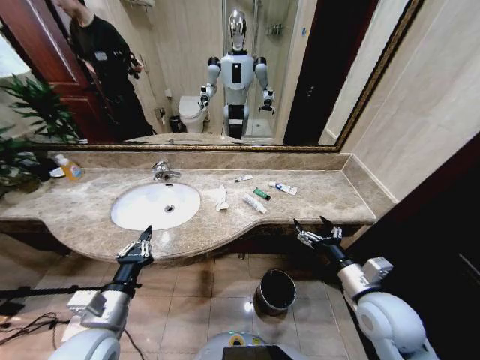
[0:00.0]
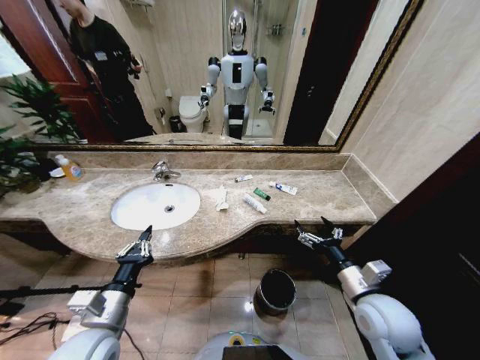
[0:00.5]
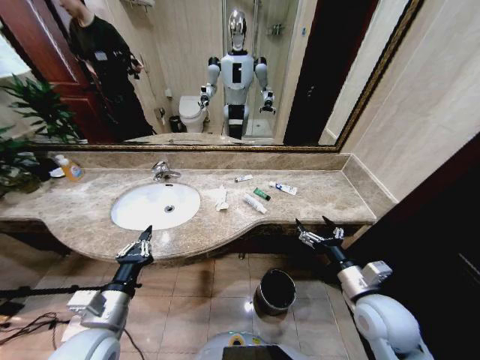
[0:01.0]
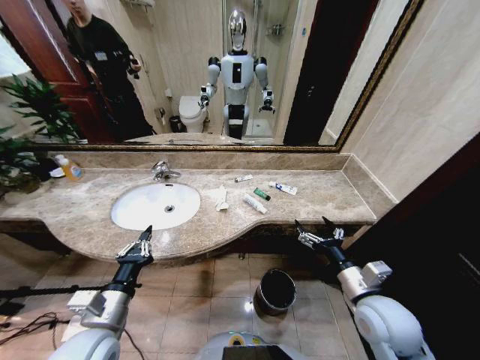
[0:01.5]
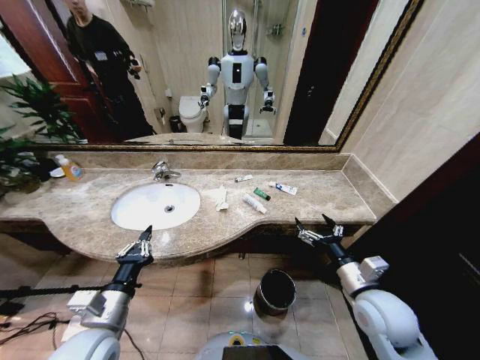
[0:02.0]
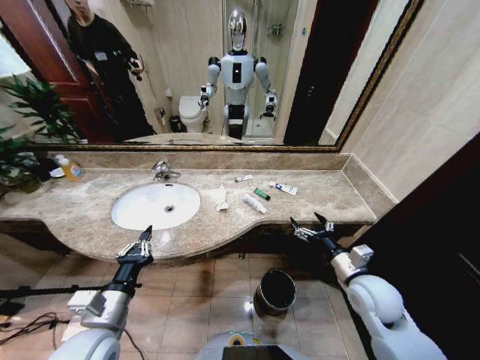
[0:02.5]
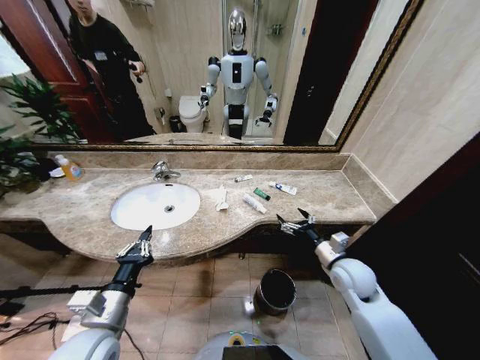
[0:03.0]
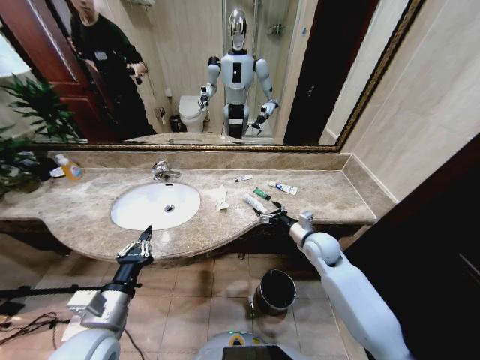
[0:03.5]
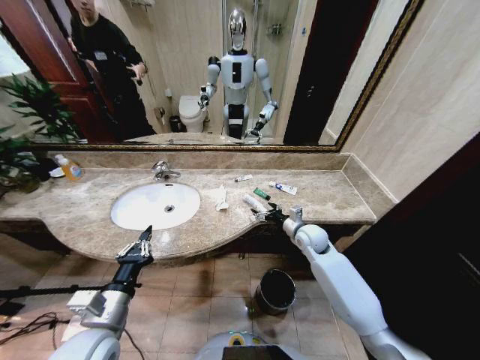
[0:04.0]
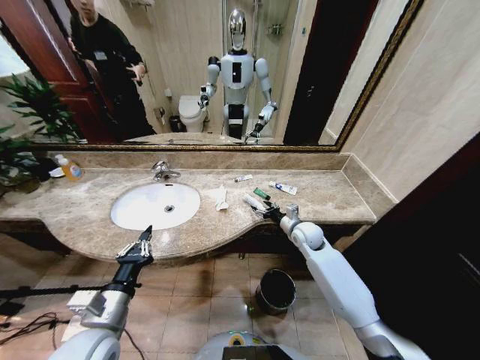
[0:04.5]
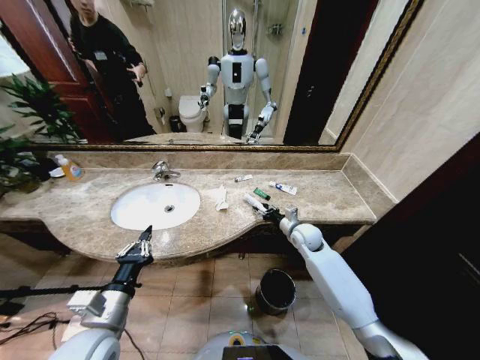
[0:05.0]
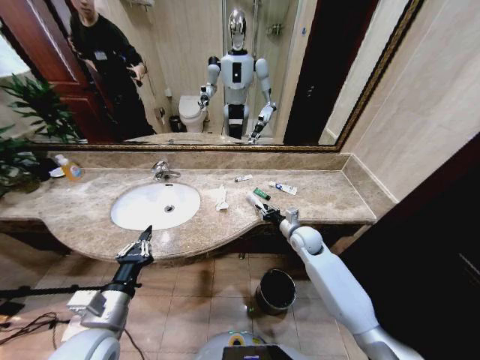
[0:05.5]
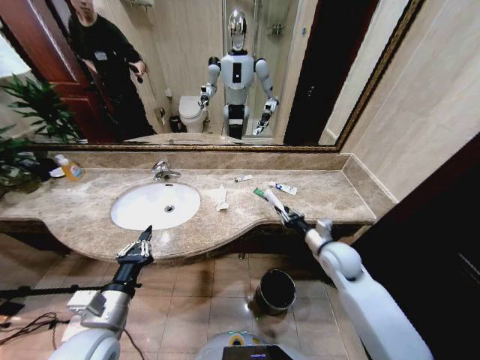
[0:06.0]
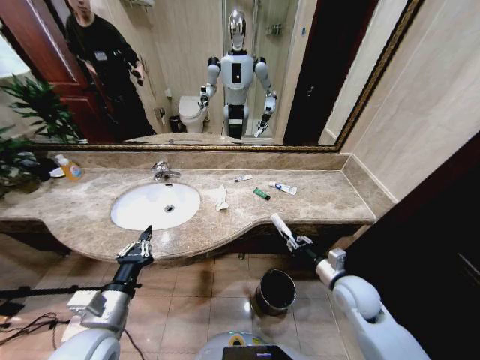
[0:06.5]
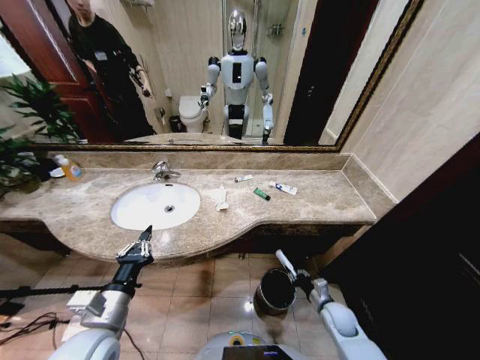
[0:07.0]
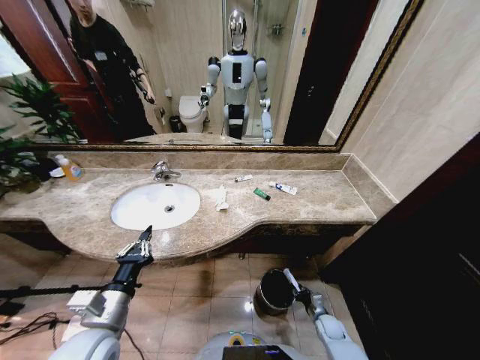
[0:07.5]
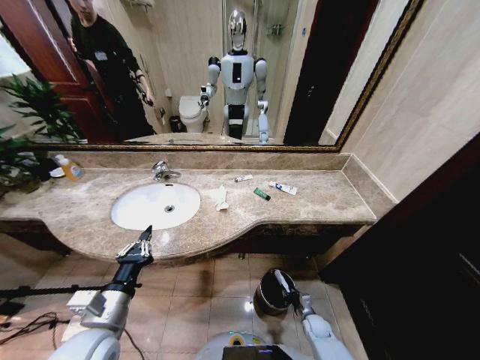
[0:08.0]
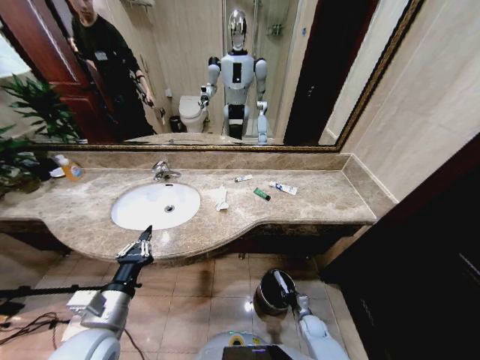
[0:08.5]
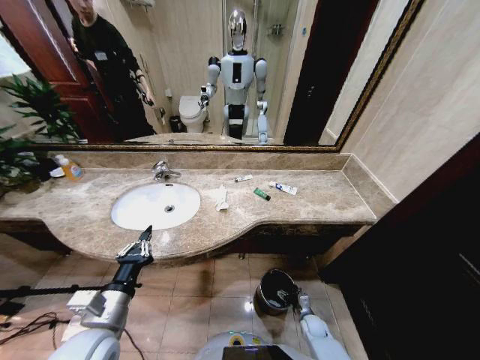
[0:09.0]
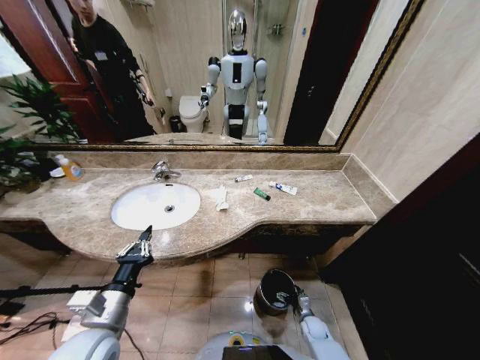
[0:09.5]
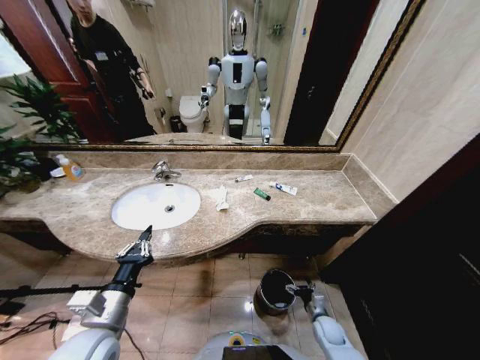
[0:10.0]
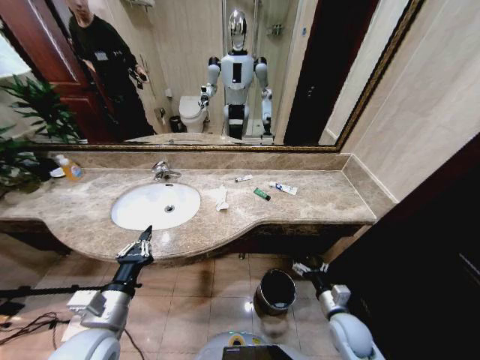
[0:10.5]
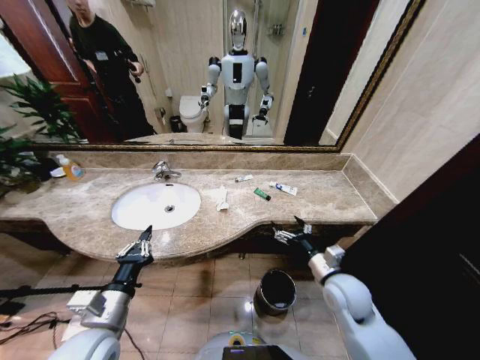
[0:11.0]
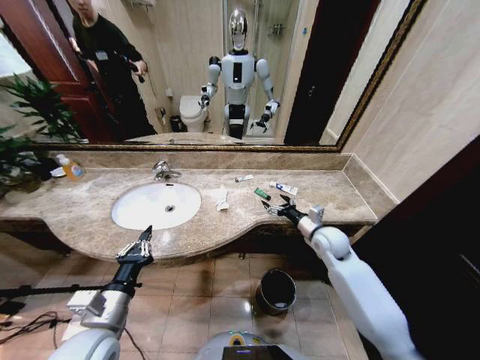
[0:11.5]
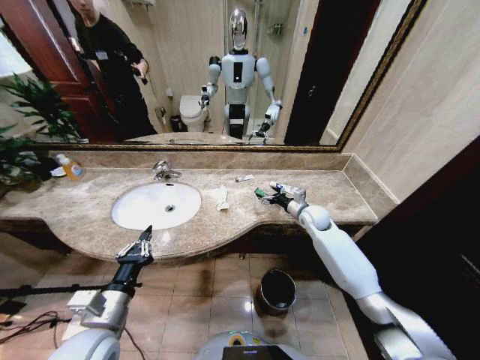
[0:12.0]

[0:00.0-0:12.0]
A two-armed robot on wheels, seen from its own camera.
Task of the whole recording: Pick up the trash from the sink and place it in the trash bin.
0:02.0 to 0:04.0: The right gripper heads forward, covering approximately 20 cm.
0:04.0 to 0:06.0: The right gripper heads backward, covering some 10 cm, and closes its fingers.
0:06.0 to 0:08.0: The right gripper goes roughly 35 cm downward.
0:08.0 to 0:10.0: The right gripper changes place by roughly 5 cm, and opens.
0:10.0 to 0:12.0: The right gripper shifts approximately 40 cm upward and forward.

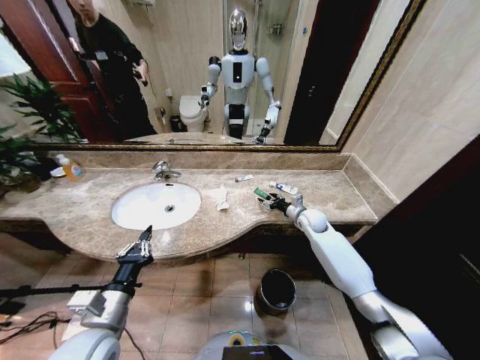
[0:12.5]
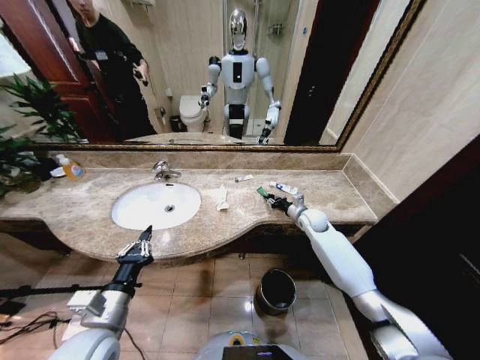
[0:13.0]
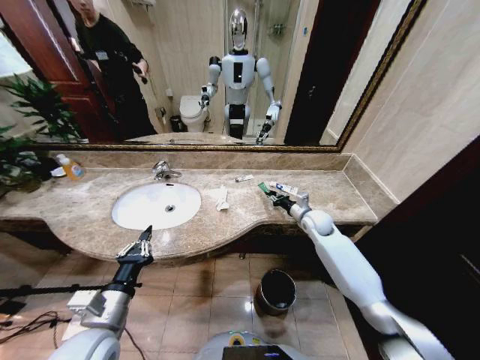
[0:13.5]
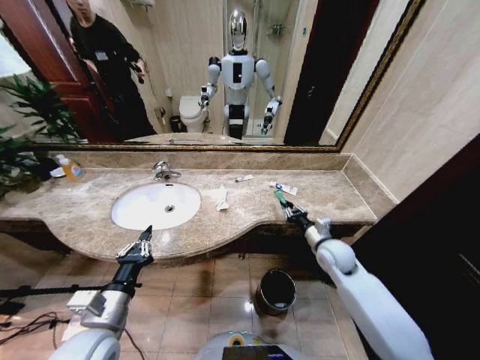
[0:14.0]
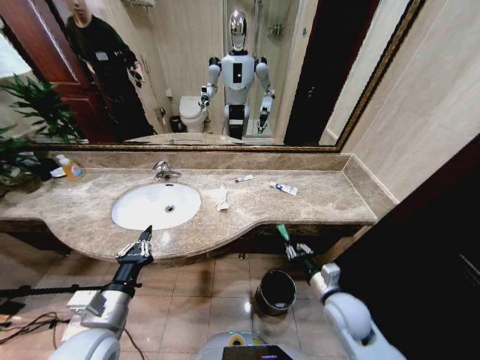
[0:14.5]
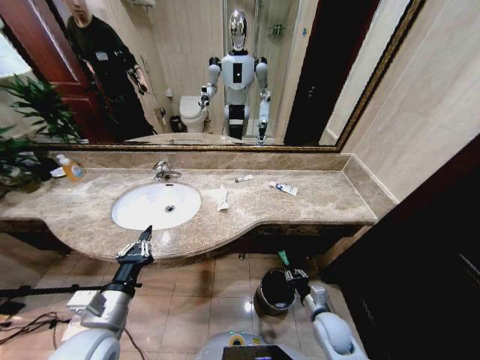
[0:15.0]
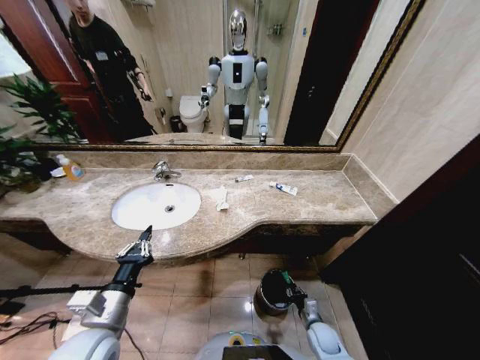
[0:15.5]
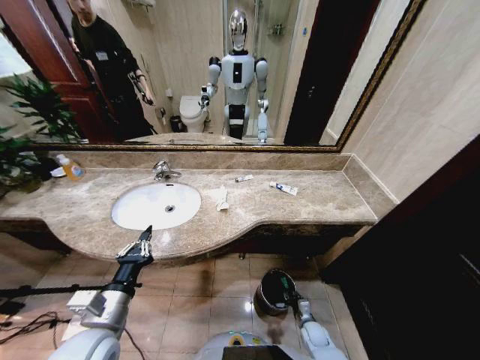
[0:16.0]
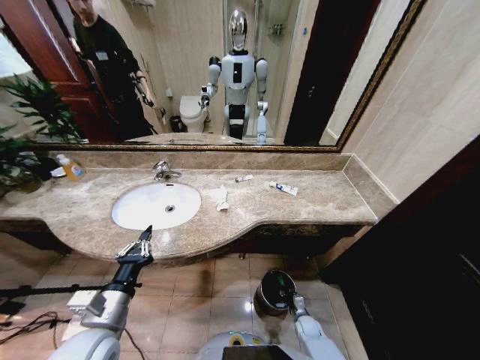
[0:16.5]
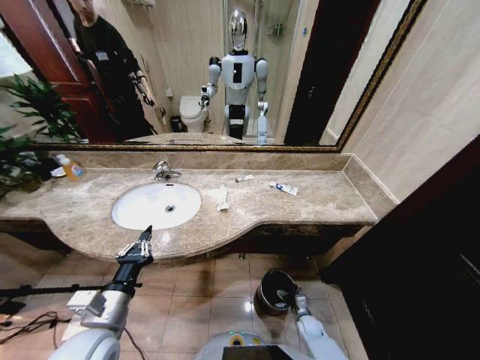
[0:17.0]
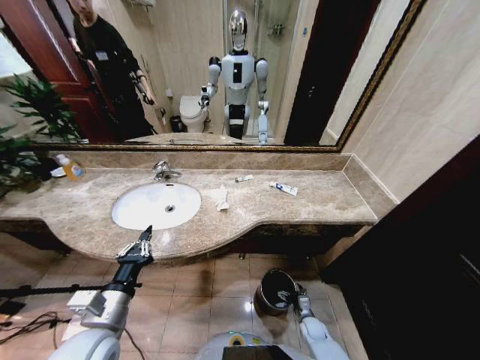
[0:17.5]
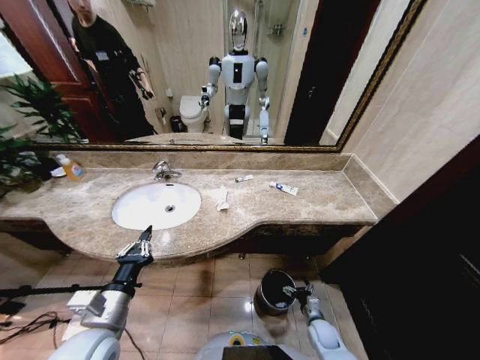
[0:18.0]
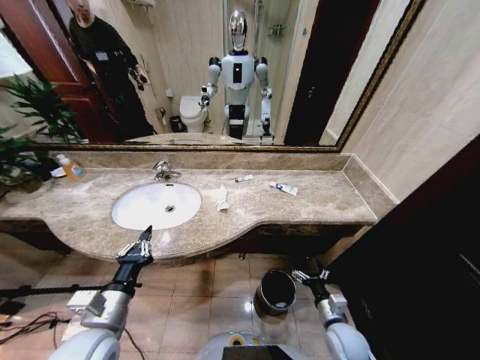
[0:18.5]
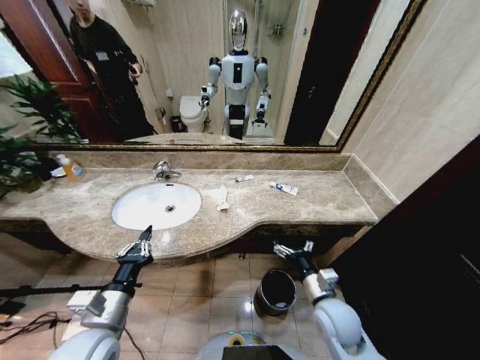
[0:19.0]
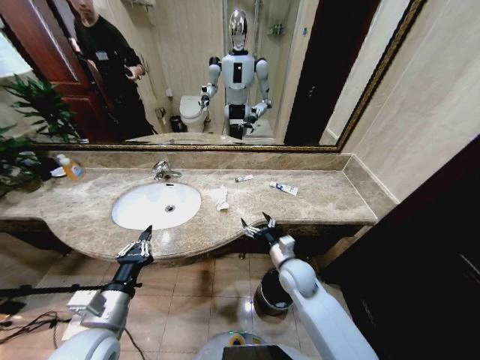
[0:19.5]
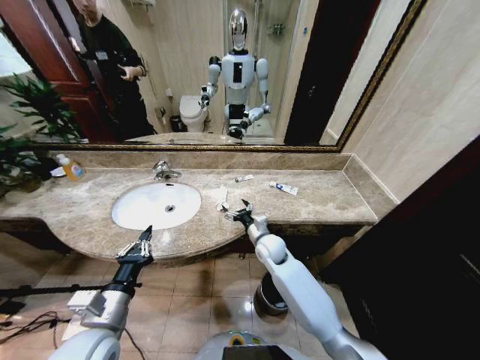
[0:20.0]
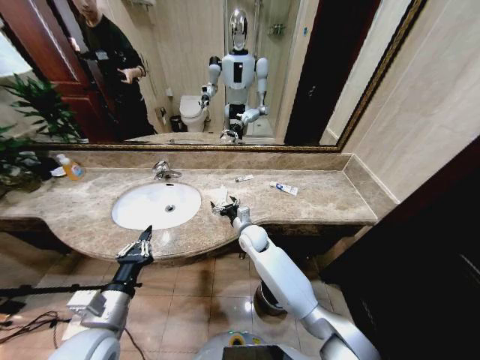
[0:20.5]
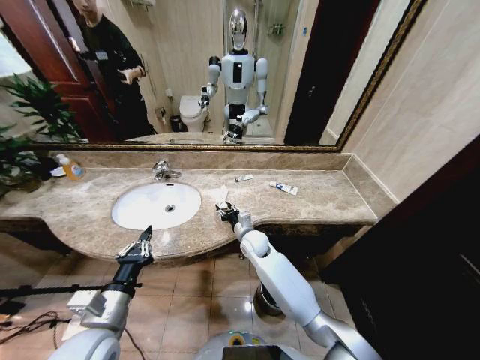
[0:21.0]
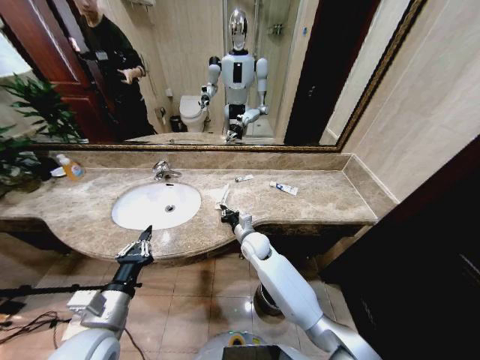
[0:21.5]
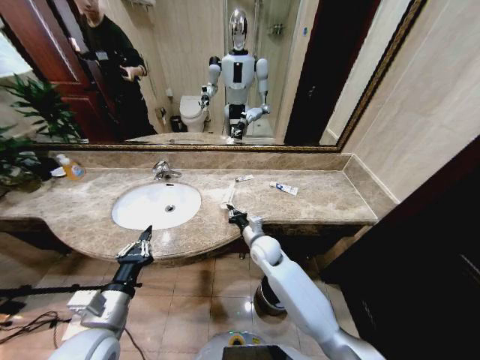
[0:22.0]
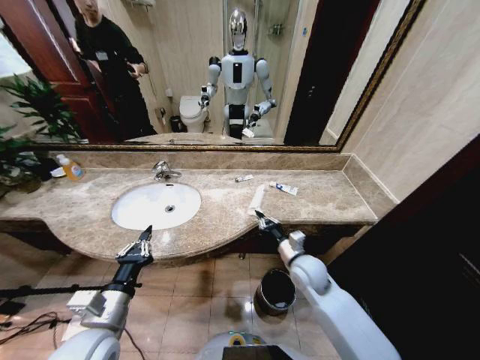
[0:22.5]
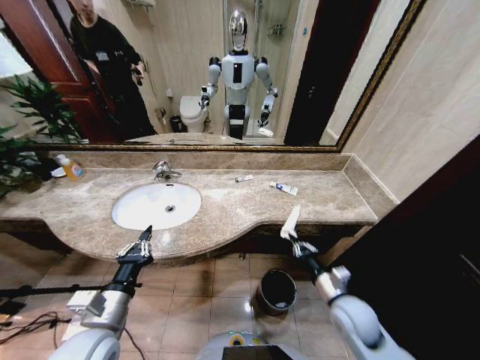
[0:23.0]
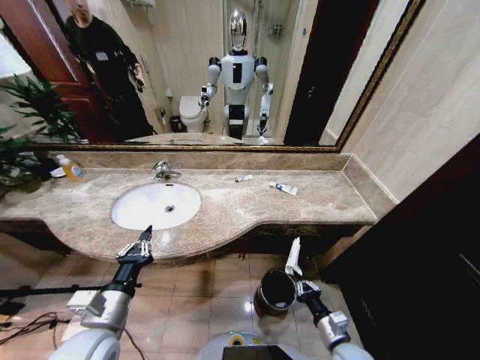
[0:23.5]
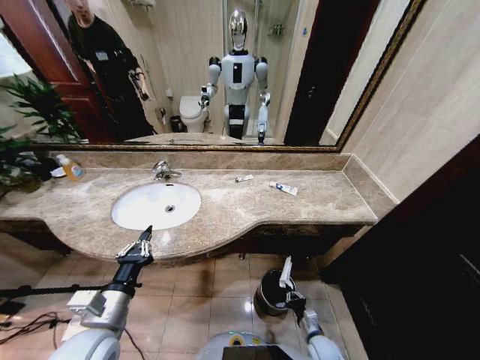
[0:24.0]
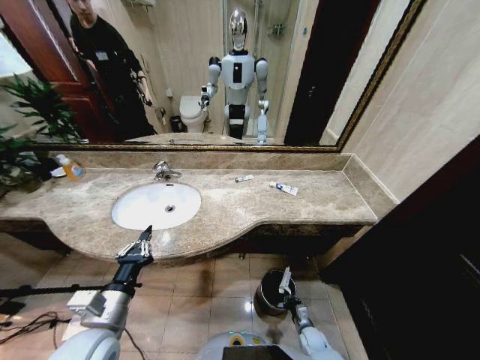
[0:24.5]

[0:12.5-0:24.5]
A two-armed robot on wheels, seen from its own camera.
Task of the whole recording: Pick up the trash from the sink and place it in the trash bin.
0:12.5 to 0:14.5: The right gripper heads backward, covering roughly 30 cm, and closes up.
0:14.5 to 0:16.5: The right gripper shifts roughly 30 cm downward.
0:16.5 to 0:18.5: The right gripper shifts roughly 20 cm upward, and opens its fingers.
0:18.5 to 0:20.5: The right gripper shifts approximately 40 cm forward, to the left and upward.
0:20.5 to 0:22.5: The right gripper heads to the right and backward, covering about 20 cm, and closes its fingers.
0:22.5 to 0:24.5: The right gripper goes about 35 cm downward.

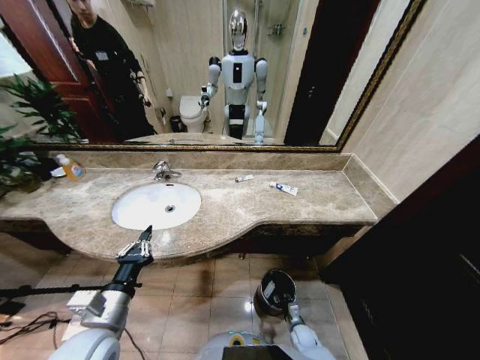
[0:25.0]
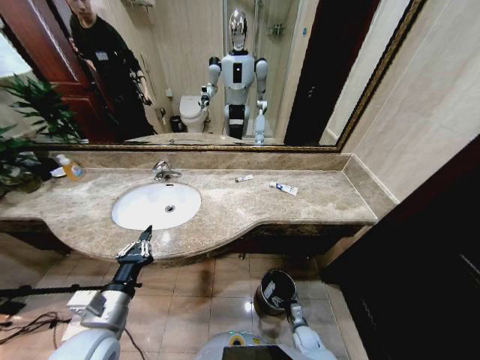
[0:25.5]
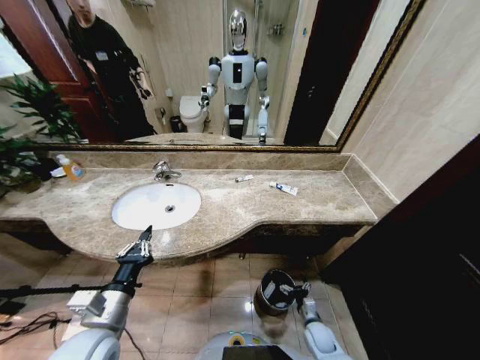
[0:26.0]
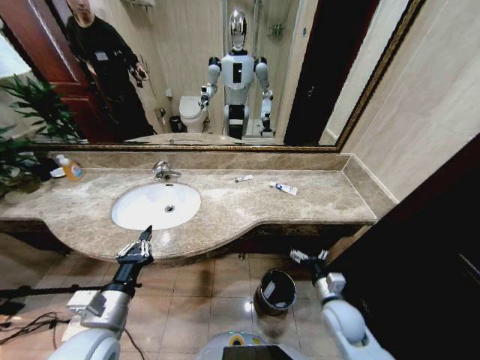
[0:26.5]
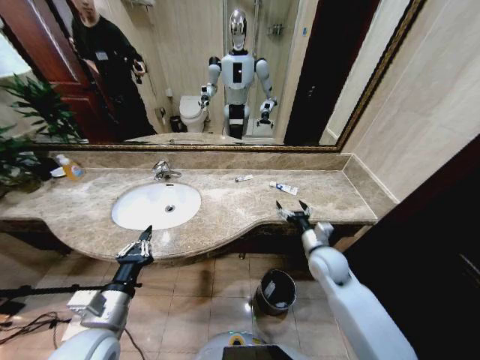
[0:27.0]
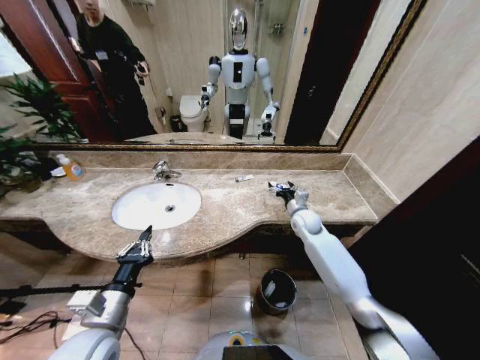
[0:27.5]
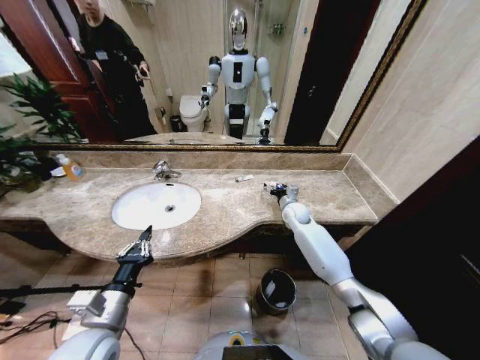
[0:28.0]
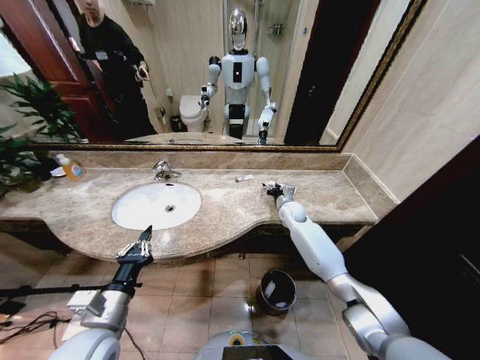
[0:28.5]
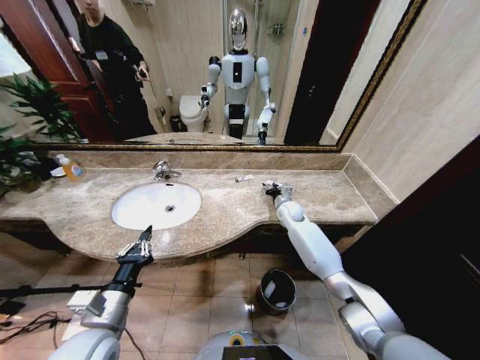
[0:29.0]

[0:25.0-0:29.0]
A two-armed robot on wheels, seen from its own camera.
Task of the whole recording: Pick up the trash from the sink and place it in the trash bin.
0:25.0 to 0:27.0: The right gripper is displaced upward by some 35 cm, and opens.
0:27.0 to 0:29.0: The right gripper goes some 25 cm forward, and closes.
